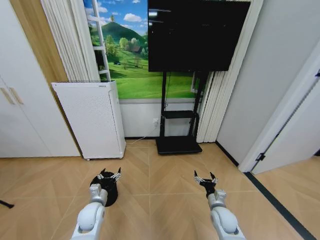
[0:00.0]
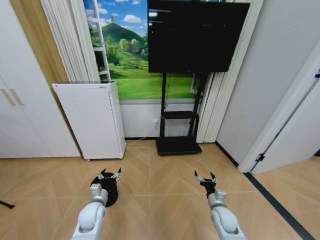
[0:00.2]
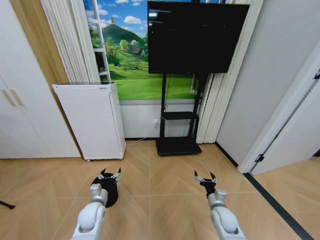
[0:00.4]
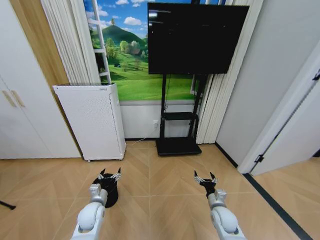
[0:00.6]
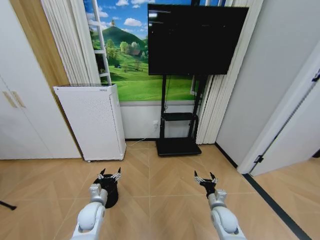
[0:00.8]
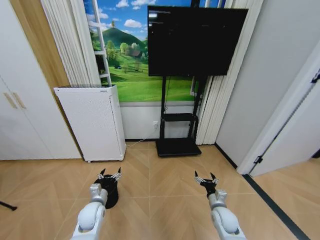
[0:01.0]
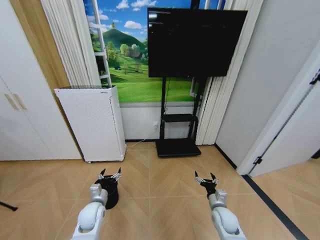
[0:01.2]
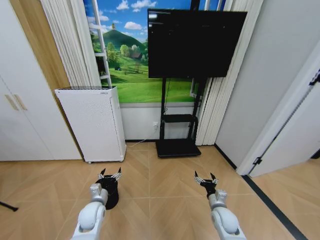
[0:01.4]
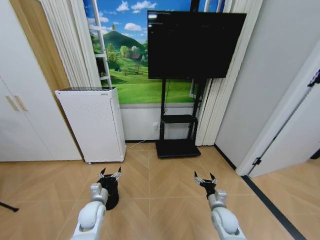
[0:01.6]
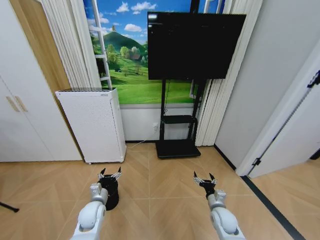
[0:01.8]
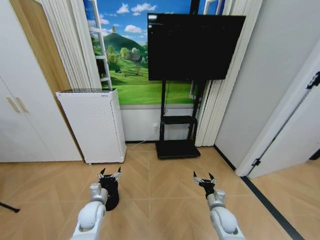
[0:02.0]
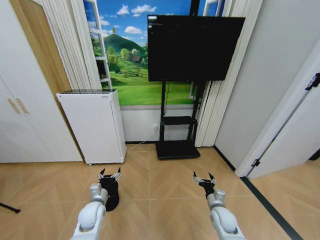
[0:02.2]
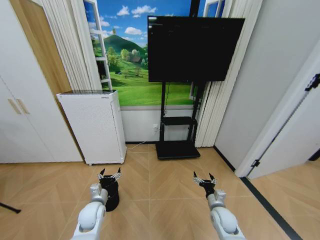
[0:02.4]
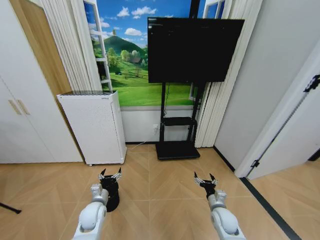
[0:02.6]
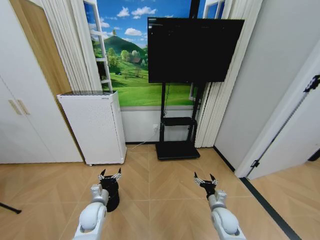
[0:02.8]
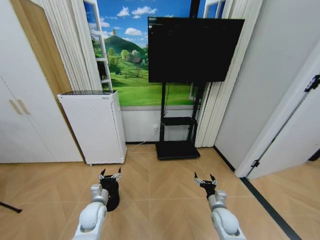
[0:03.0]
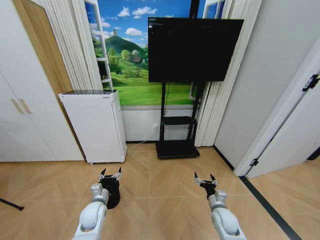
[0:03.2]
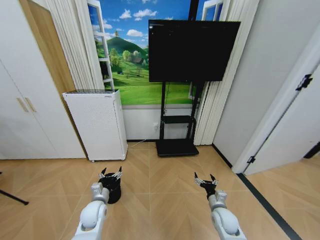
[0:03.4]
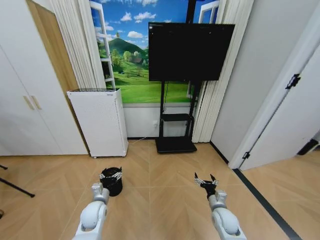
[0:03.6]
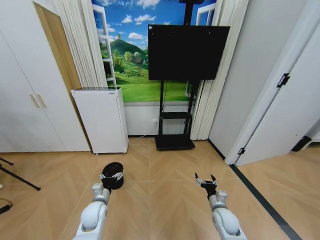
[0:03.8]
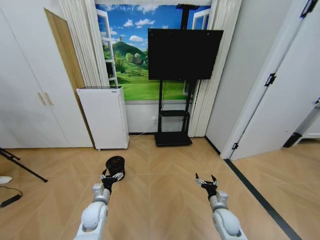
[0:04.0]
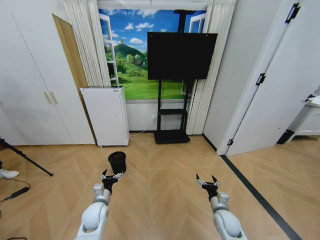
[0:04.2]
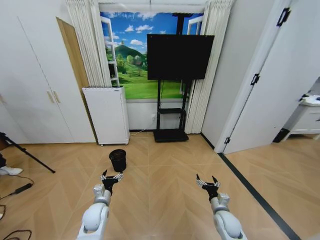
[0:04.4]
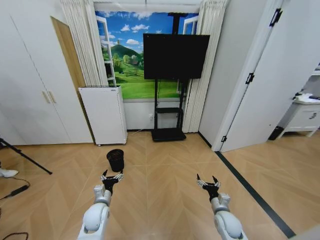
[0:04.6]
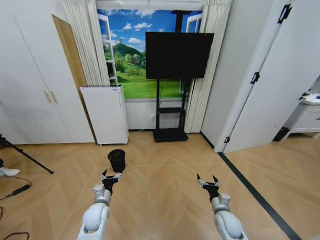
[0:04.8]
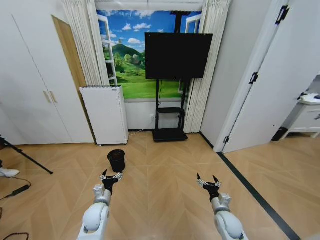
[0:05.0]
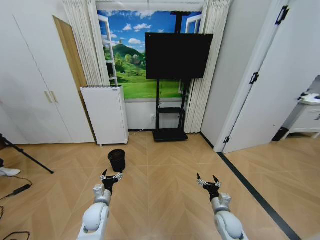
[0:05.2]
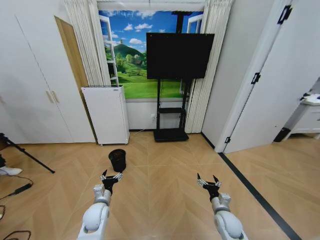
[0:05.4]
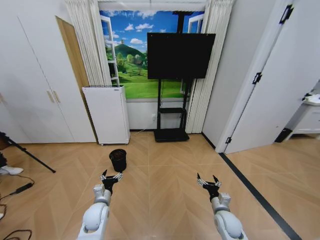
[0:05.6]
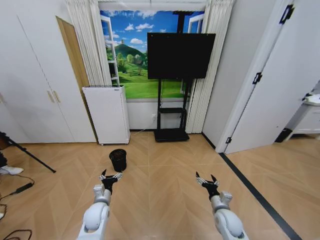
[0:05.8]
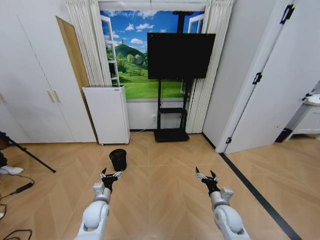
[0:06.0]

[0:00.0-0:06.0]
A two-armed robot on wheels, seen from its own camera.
Task of the whole recording: Pick up the trash bin and place the garbage on the floor into it.
0:00.0 to 0:03.0: Both grippers stay put.
0:04.4 to 0:06.0: The grippers make only small movements.

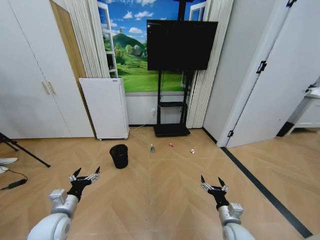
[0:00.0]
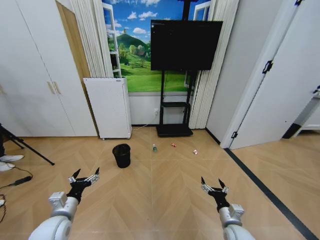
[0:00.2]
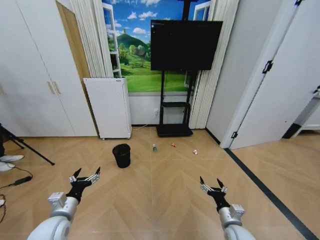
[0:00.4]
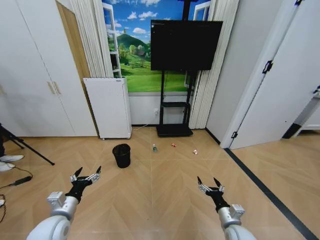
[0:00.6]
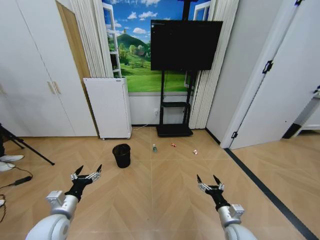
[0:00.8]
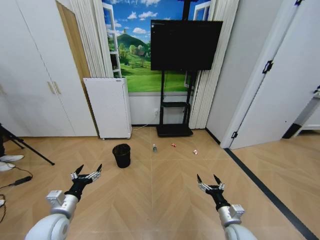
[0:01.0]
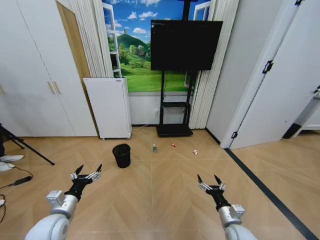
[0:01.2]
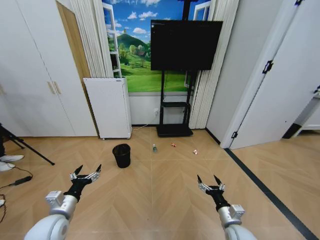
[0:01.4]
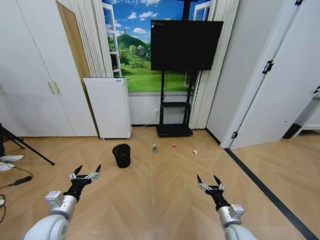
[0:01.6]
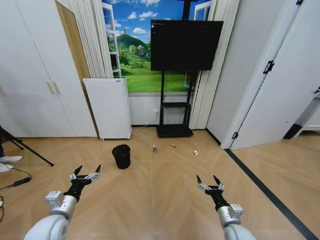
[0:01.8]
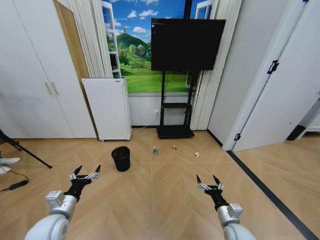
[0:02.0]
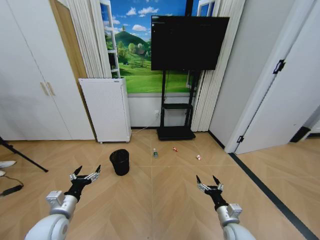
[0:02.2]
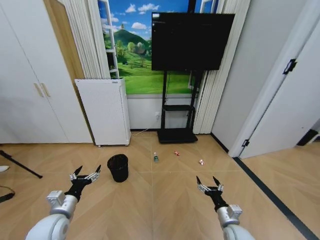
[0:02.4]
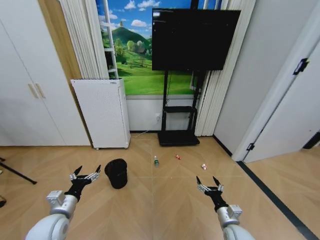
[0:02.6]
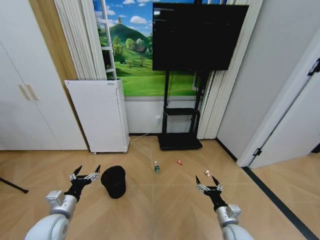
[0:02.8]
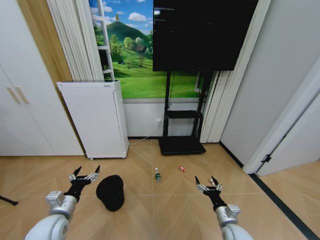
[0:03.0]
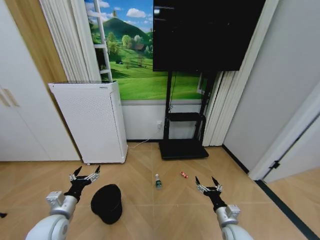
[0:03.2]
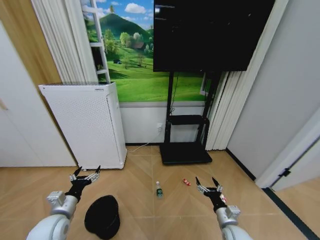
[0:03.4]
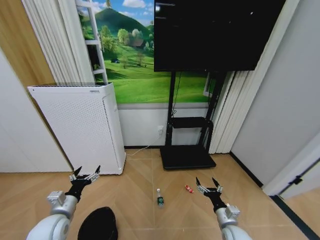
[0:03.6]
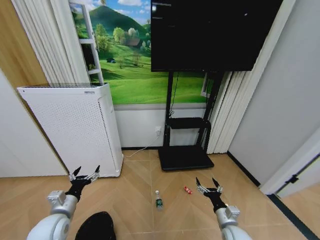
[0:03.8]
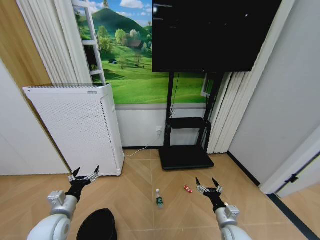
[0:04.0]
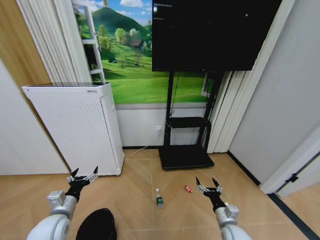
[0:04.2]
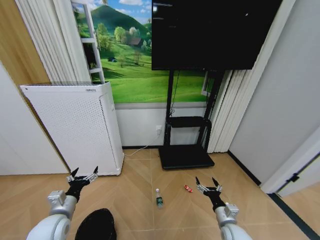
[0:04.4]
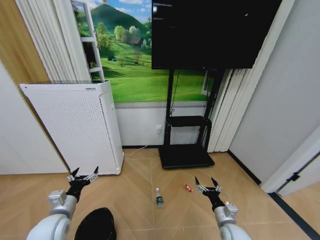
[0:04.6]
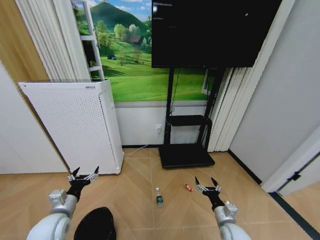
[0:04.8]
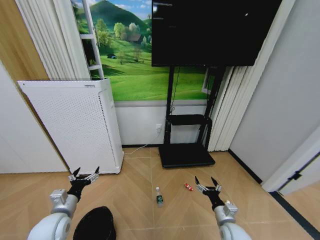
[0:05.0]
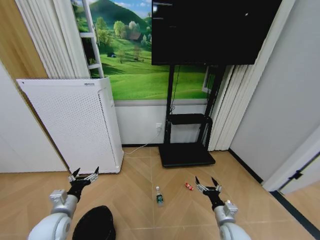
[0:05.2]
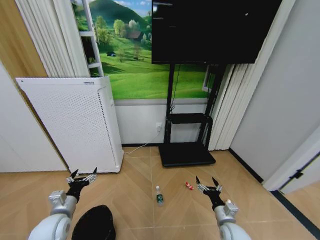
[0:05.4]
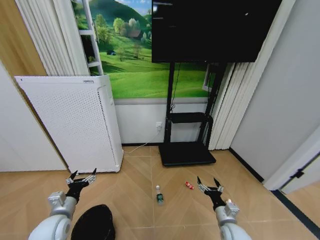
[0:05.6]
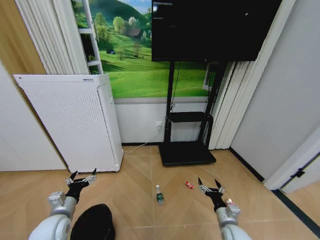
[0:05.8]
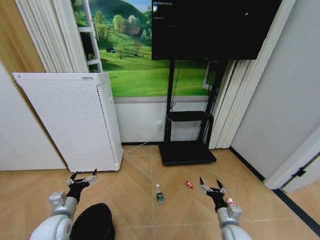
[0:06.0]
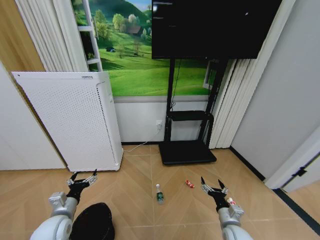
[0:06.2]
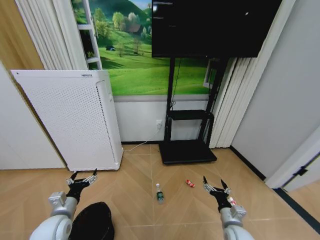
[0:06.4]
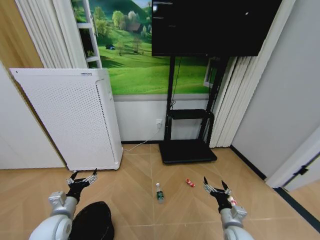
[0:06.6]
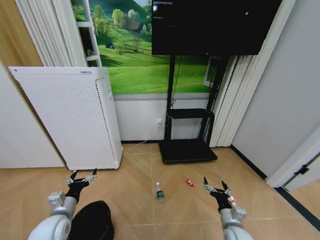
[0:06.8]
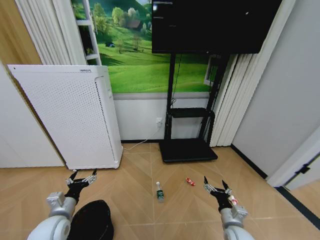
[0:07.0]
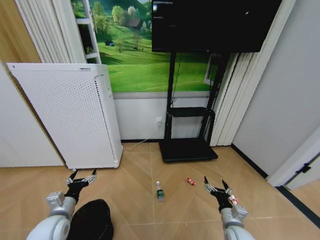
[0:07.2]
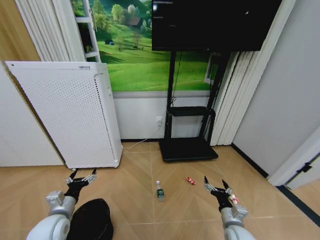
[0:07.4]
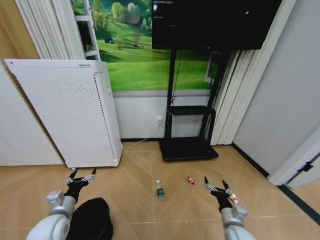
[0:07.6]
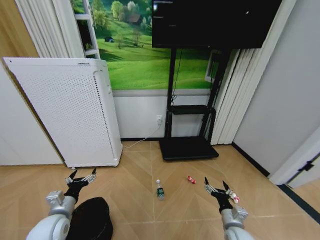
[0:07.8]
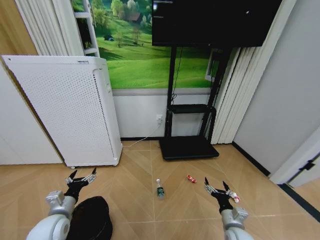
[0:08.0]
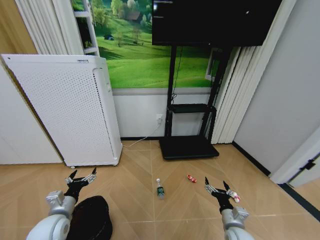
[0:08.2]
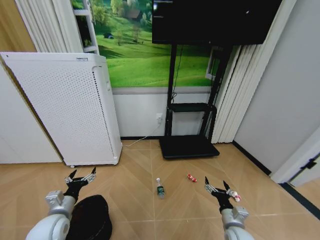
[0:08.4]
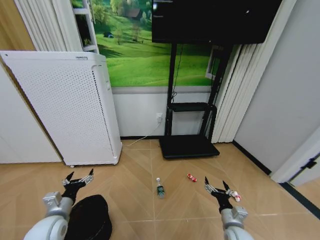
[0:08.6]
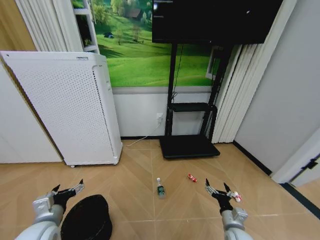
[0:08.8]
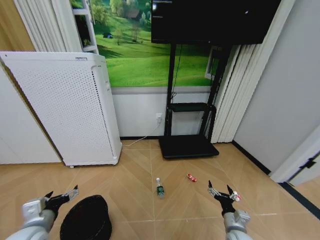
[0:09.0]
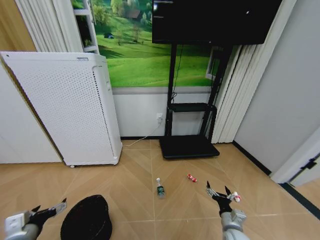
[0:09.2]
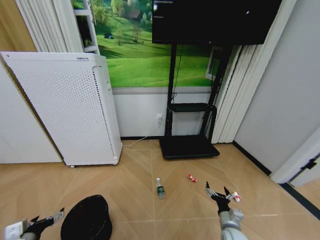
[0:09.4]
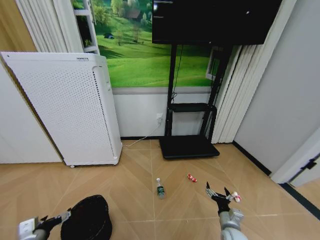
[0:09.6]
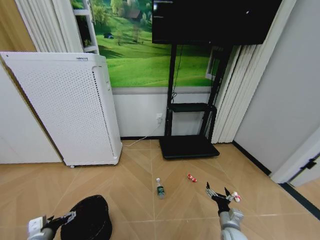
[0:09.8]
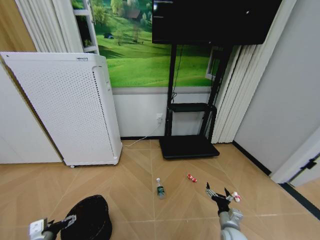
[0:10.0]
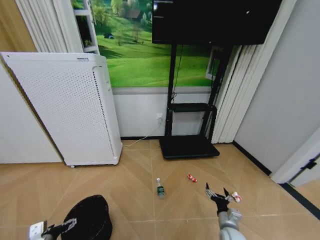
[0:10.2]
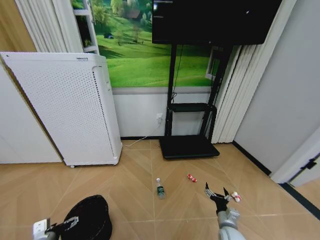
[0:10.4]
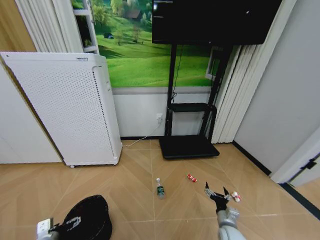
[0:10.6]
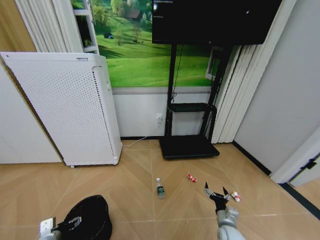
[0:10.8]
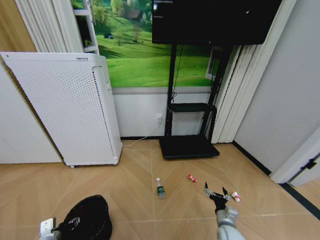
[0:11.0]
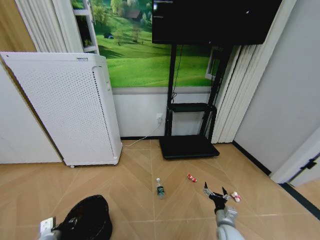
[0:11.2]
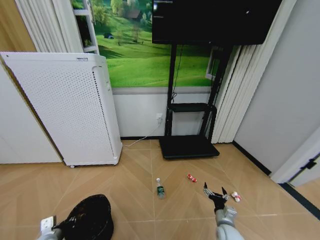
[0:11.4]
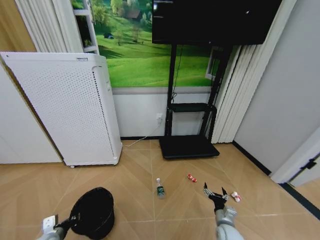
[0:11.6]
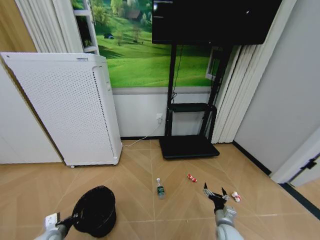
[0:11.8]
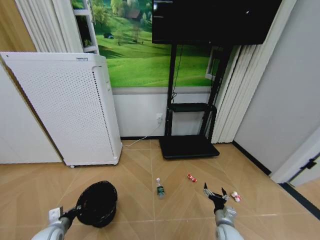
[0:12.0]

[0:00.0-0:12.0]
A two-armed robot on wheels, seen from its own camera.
Task of the whole recording: Pick up the trash bin and place the garbage on the floor into it.
0:04.4 to 0:07.6: The grippers stay close to where they were, moving slightly.
0:07.6 to 0:09.0: The left gripper moves upward, some 5 cm.
0:09.0 to 0:10.4: The left gripper moves downward and to the left, some 15 cm.
0:10.4 to 0:12.0: The left gripper shifts by roughly 5 cm, and closes up.

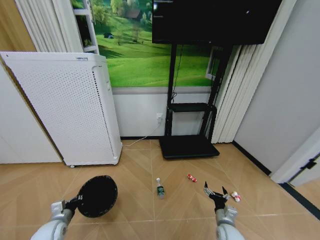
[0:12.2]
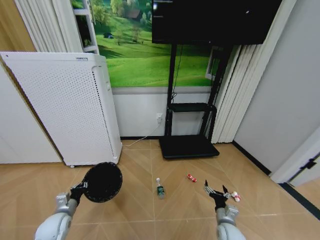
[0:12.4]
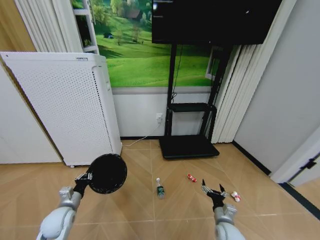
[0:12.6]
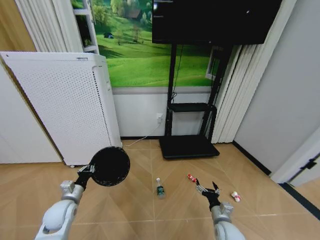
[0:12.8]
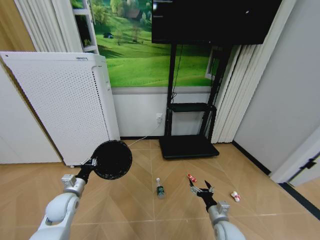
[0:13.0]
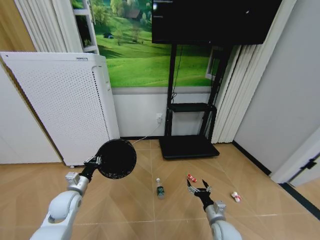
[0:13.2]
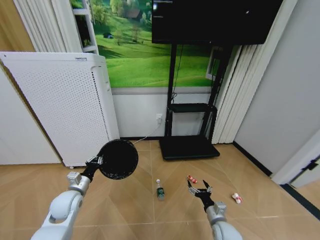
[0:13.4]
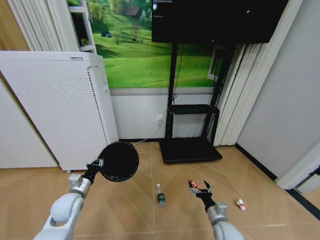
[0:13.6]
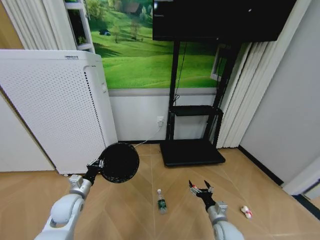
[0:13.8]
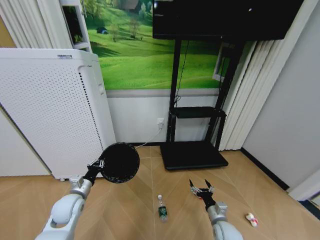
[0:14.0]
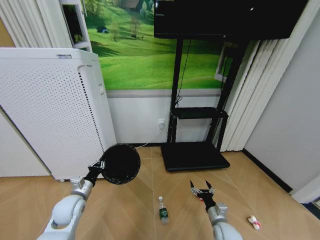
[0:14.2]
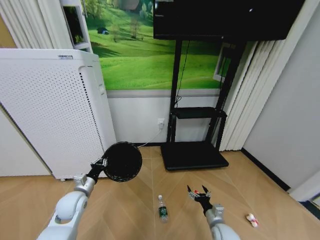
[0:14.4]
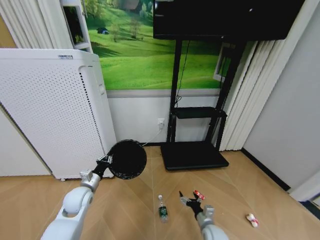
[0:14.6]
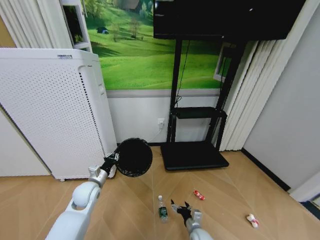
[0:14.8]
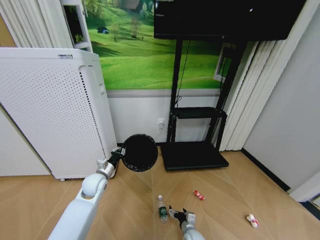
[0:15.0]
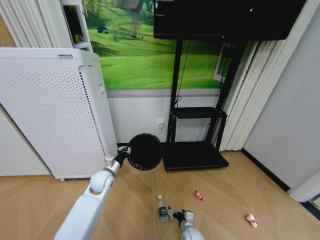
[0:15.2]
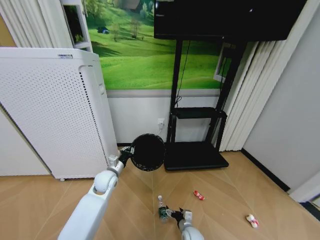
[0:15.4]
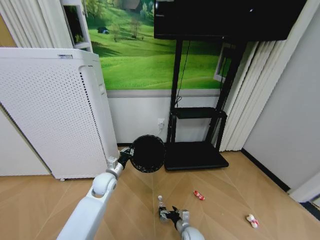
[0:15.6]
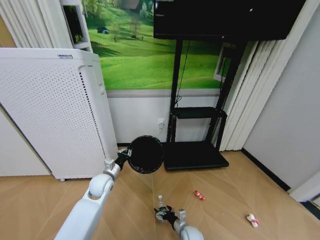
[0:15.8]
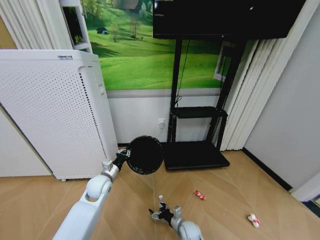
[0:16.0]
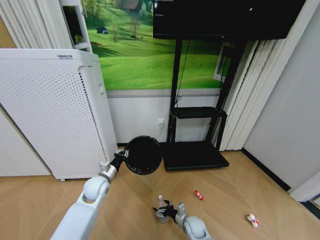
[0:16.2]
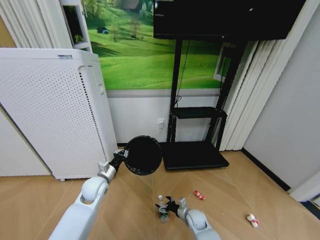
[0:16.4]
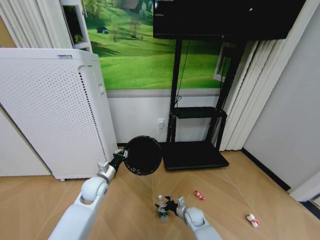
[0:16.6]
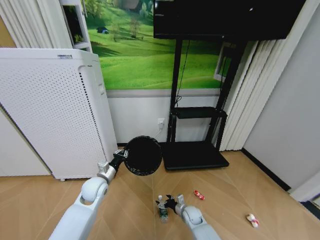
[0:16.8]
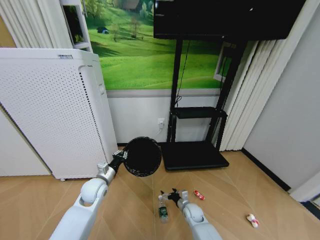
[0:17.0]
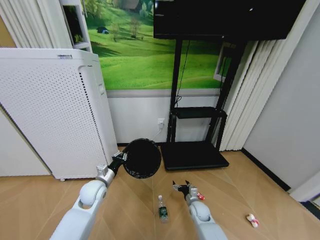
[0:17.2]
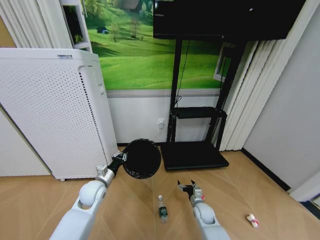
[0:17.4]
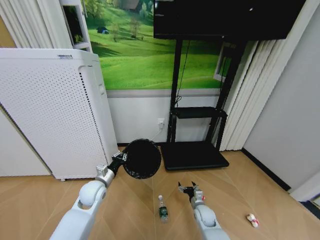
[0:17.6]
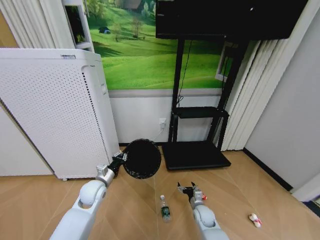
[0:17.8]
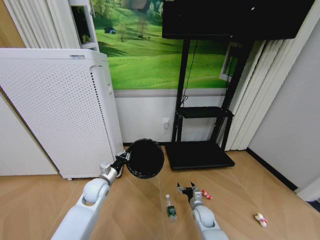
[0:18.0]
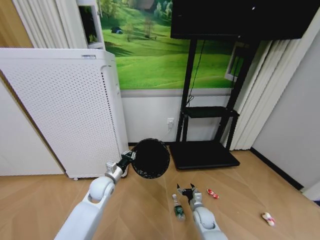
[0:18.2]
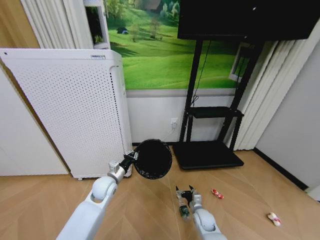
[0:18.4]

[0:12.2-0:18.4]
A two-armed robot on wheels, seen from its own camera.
Task of the whole recording: Pick up the trash bin and place the garbage on the floor into it.
0:12.2 to 0:13.8: The left gripper heads upward, to the right and forward, covering some 10 cm.
0:13.8 to 0:15.4: The right gripper goes roughly 15 cm to the left and downward. Meanwhile the left gripper shifts about 15 cm to the right and forward.
0:15.4 to 0:16.8: The left gripper ends up approximately 5 cm from where it was; the right gripper goes some 10 cm forward.
0:16.8 to 0:18.4: The right gripper ends up roughly 5 cm from where it was.
